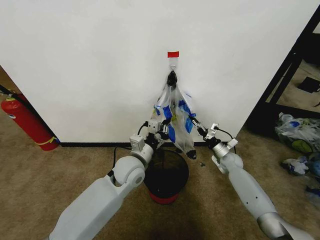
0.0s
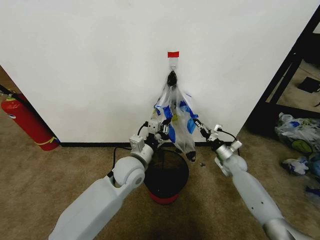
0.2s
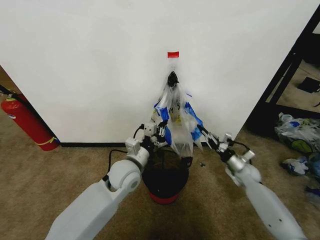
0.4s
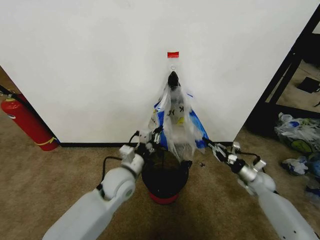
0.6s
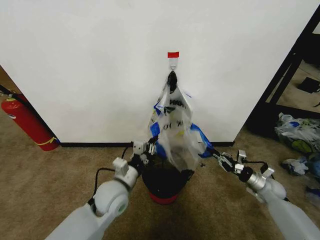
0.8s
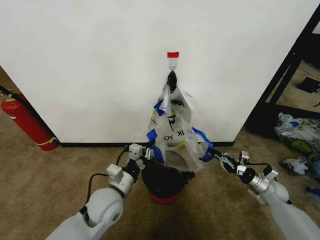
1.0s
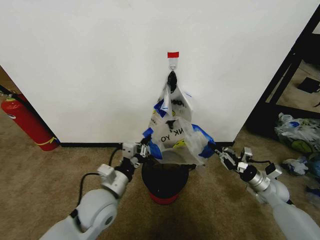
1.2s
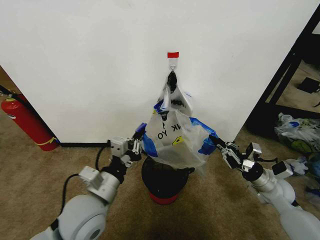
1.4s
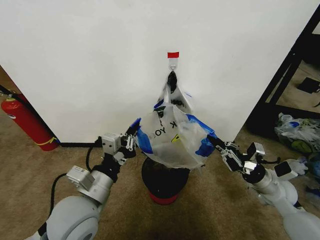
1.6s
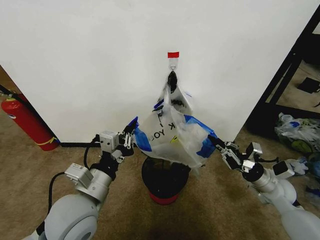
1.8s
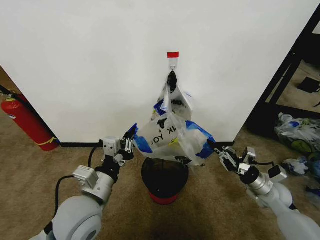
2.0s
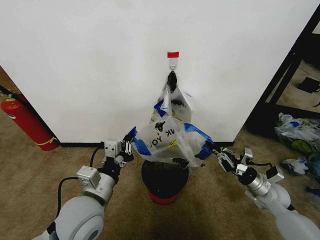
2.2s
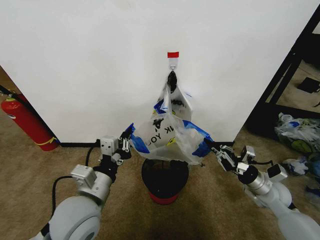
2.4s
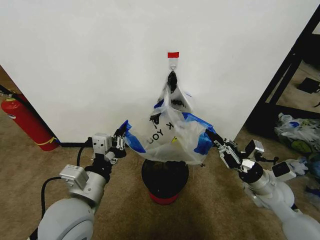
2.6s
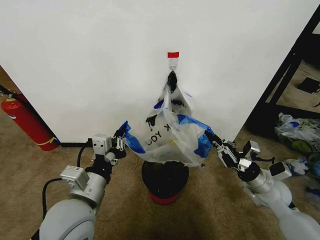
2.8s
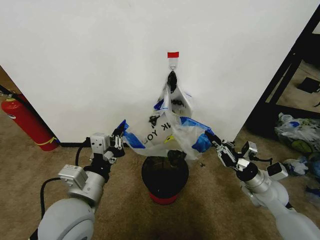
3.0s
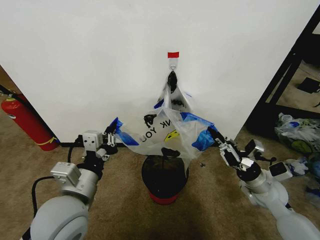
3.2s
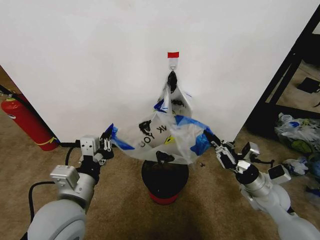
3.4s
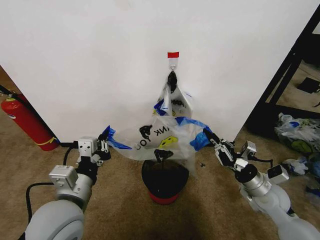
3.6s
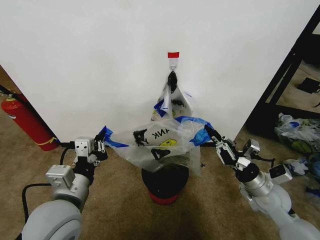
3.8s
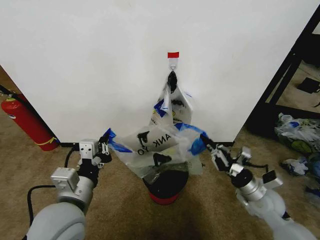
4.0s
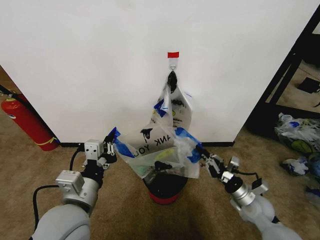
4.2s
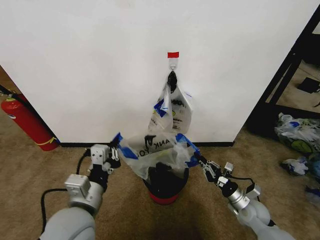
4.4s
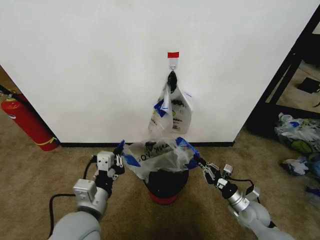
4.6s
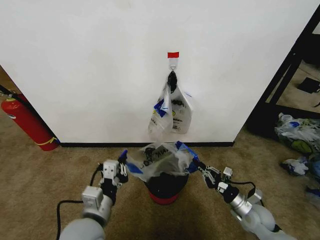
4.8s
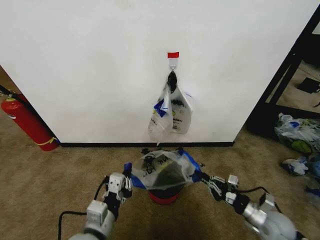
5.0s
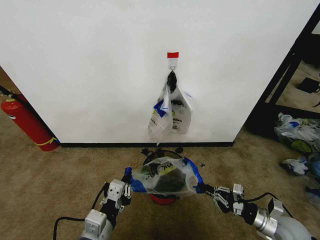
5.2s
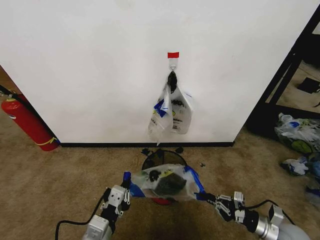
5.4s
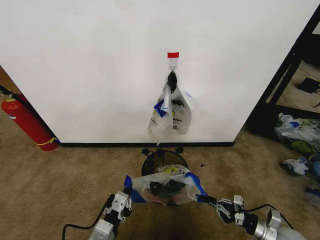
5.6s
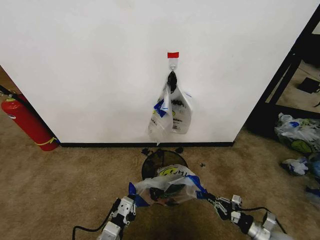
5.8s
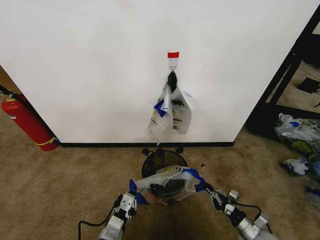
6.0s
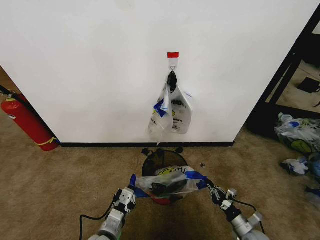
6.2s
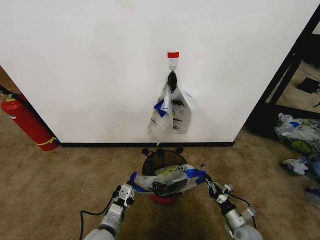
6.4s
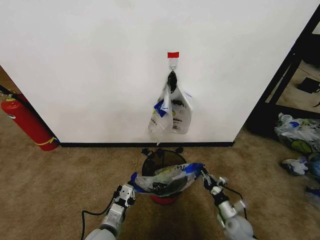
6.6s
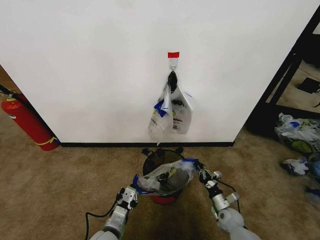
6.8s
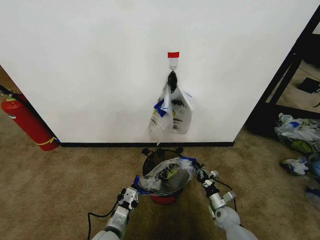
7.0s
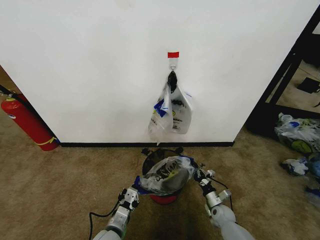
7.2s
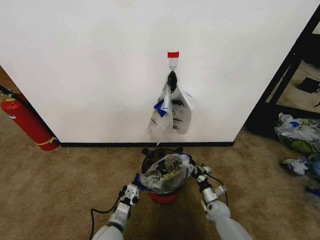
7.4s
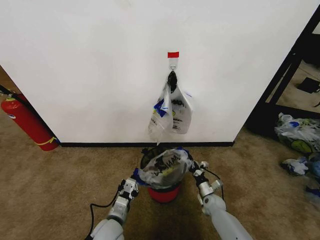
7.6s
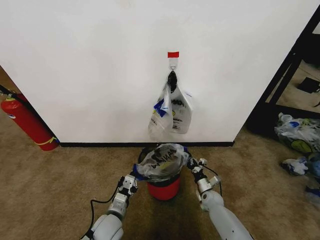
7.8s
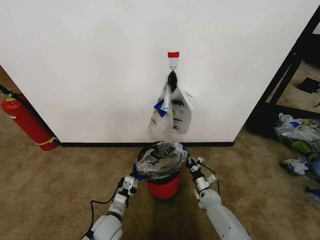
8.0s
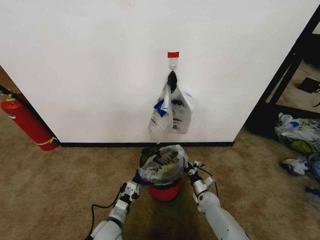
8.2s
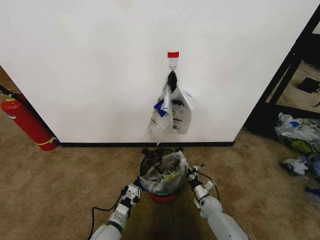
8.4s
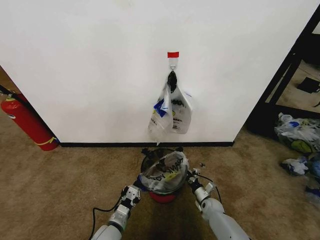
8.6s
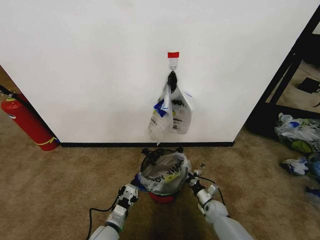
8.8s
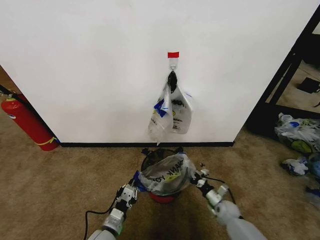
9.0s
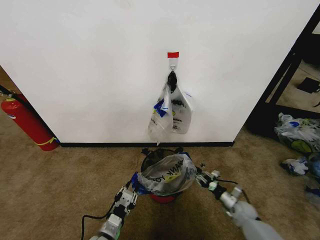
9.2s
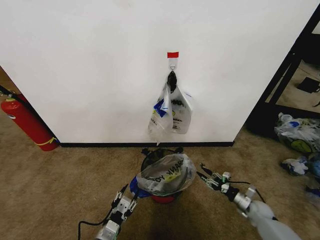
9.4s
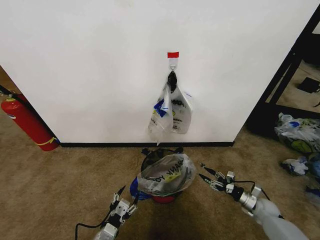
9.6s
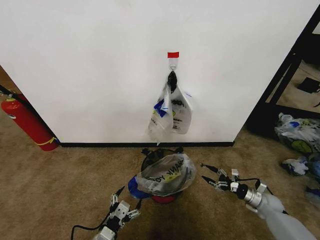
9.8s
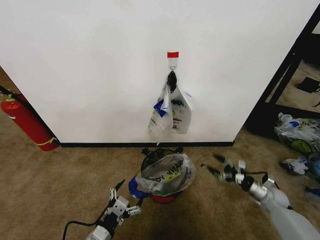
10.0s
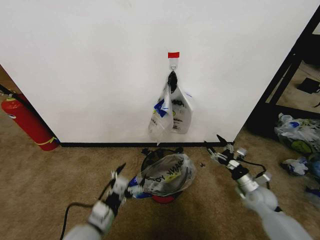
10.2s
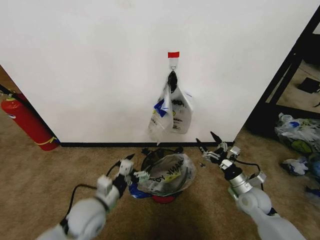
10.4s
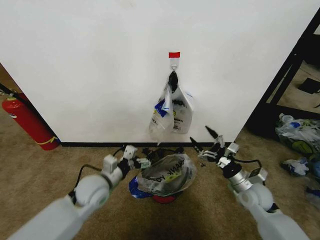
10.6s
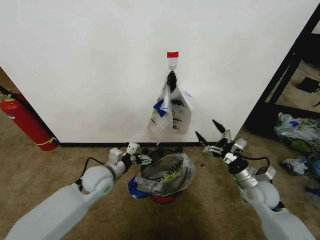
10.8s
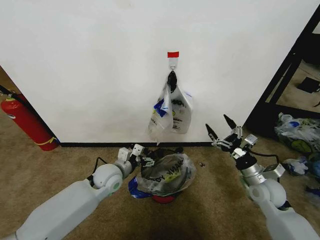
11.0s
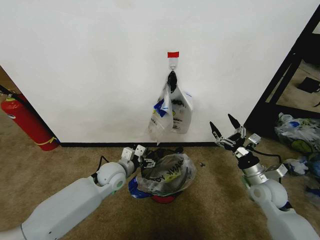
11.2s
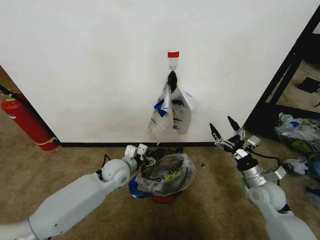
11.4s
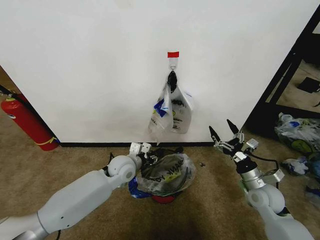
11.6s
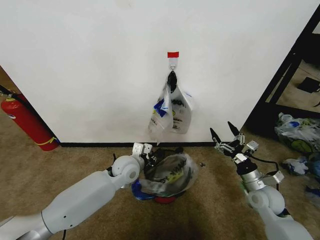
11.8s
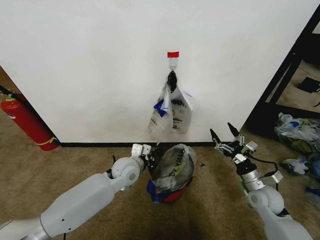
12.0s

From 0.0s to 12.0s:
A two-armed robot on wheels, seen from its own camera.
Task of the whole recording: Pick up the garbage bag from the wall and place it over the trash bin.
From 0.0s to 1.6s: The left gripper goes some 20 cm backward, to the left and upward; the right gripper is displaced backward and upward by approximately 20 cm.
From 3.0s to 4.4s: The right gripper shifts about 10 cm downward.
From 4.4s to 6.0s: The right gripper travels backward and downward by about 10 cm. Meanwhile the left gripper shifts approximately 15 cm downward.
From 6.0s to 7.6s: The left gripper travels forward and downward by some 10 cm, while the right gripper moves forward, to the left and downward, approximately 20 cm.
From 7.6s to 9.0s: The grippers stay close to where they were, moving slightly.
From 9.0s to 10.4s: The right gripper travels upward by approximately 20 cm, and opens its fingers. Meanwhile the left gripper shifts some 10 cm upward, and opens.
From 10.4s to 12.0s: The left gripper heads forward and to the right, covering about 15 cm, and closes.

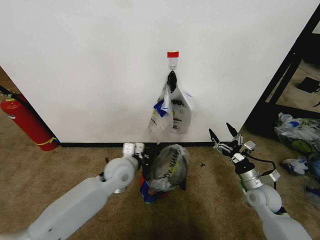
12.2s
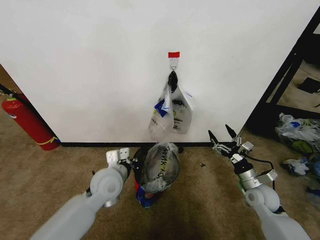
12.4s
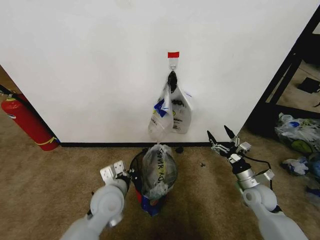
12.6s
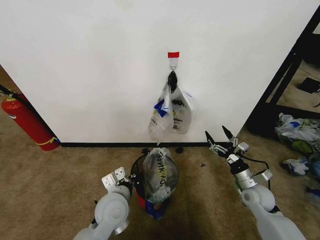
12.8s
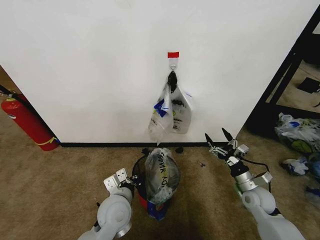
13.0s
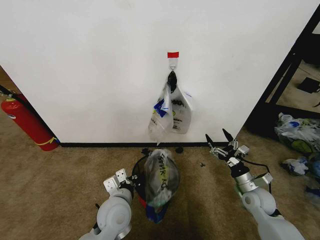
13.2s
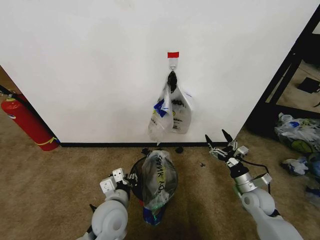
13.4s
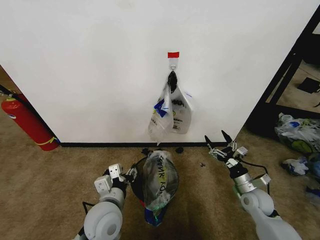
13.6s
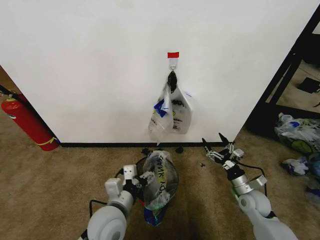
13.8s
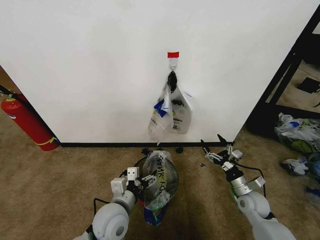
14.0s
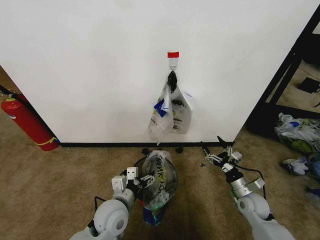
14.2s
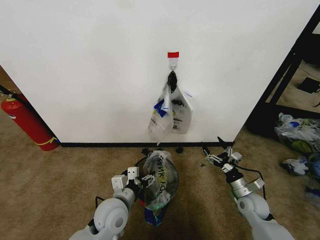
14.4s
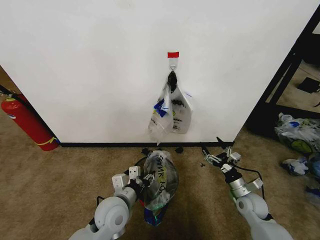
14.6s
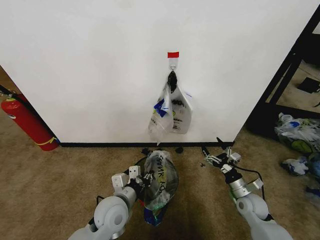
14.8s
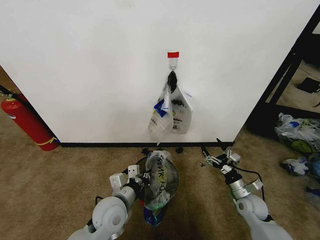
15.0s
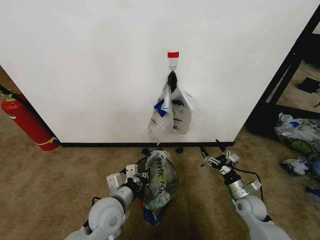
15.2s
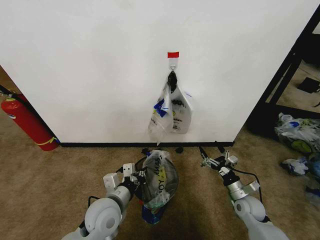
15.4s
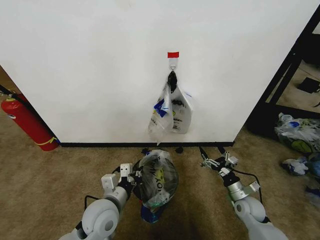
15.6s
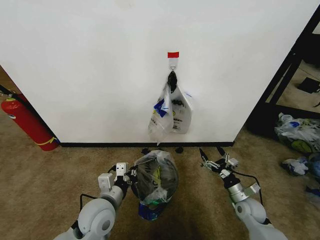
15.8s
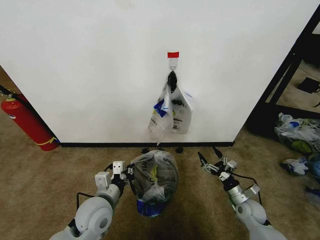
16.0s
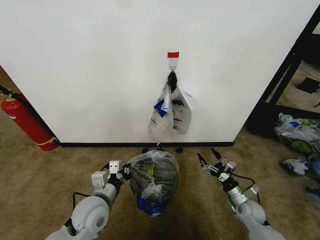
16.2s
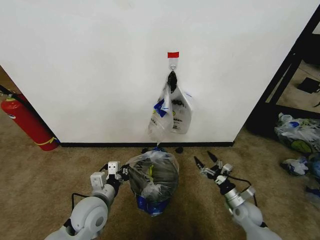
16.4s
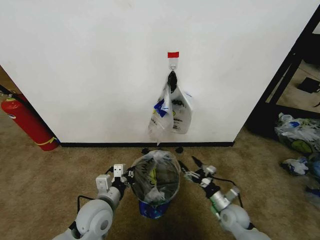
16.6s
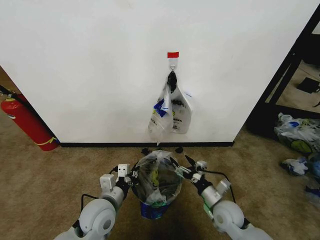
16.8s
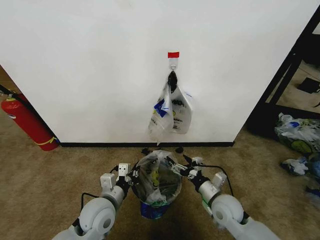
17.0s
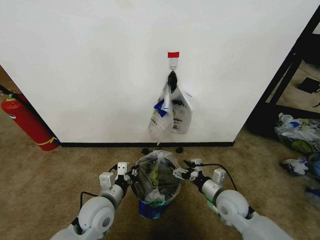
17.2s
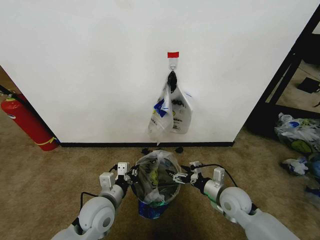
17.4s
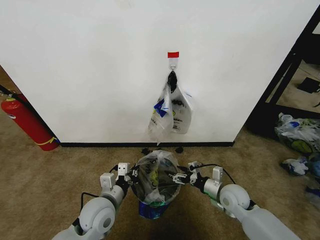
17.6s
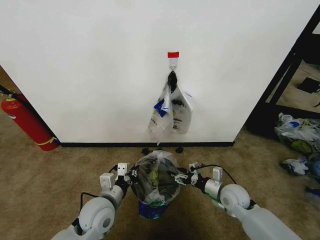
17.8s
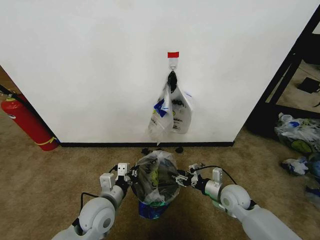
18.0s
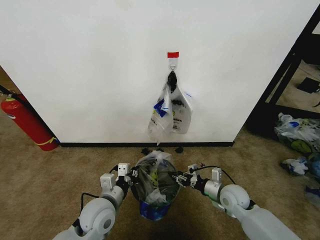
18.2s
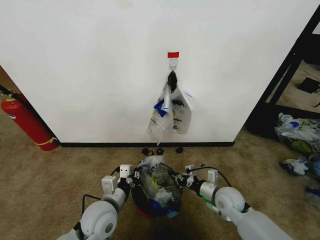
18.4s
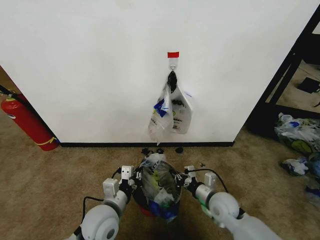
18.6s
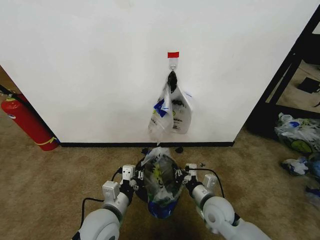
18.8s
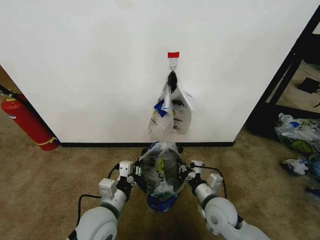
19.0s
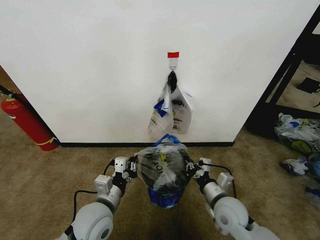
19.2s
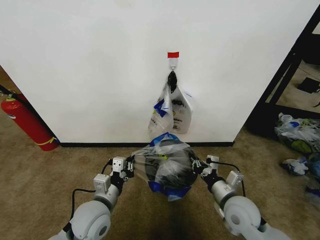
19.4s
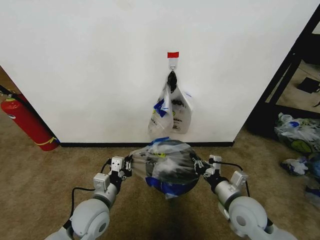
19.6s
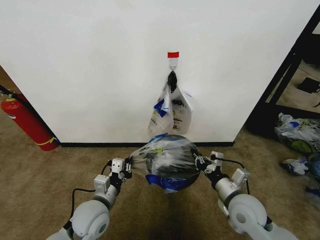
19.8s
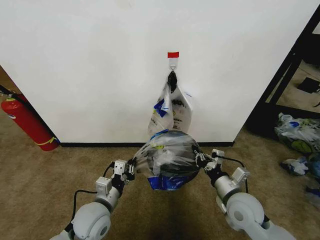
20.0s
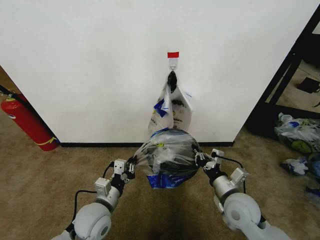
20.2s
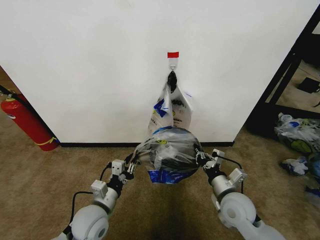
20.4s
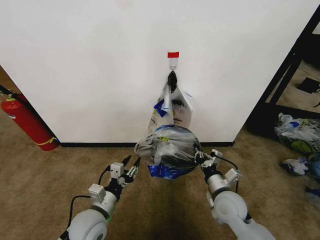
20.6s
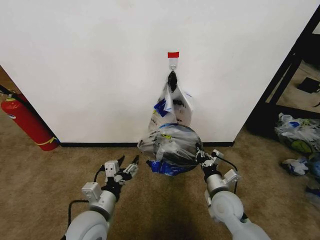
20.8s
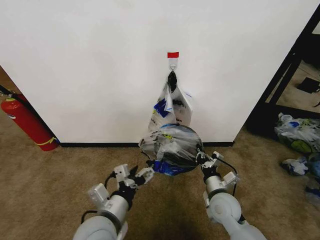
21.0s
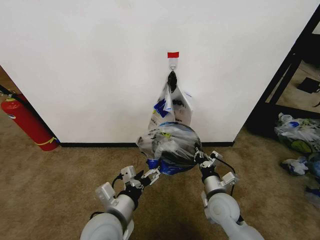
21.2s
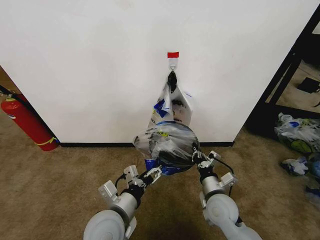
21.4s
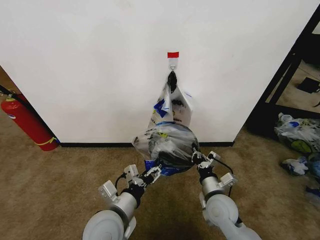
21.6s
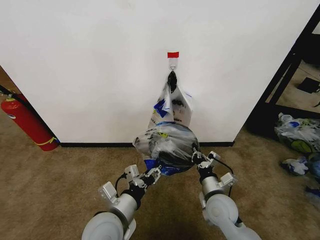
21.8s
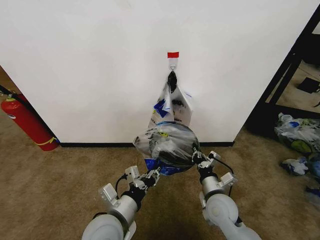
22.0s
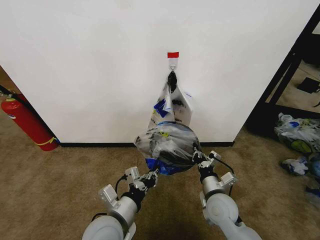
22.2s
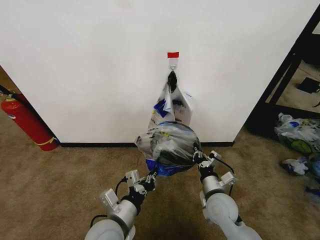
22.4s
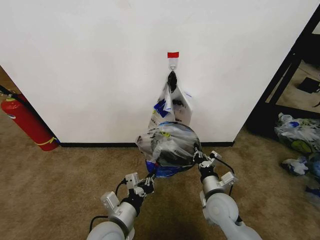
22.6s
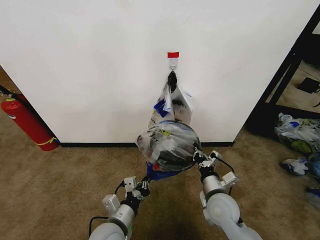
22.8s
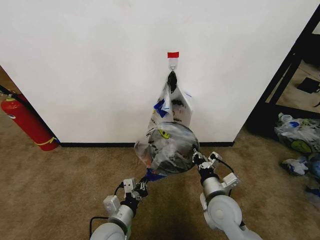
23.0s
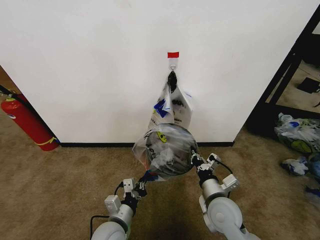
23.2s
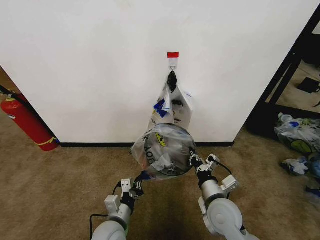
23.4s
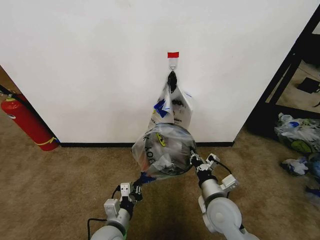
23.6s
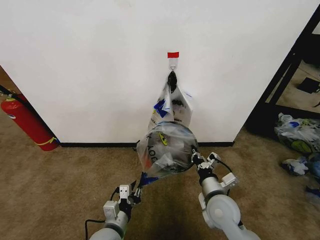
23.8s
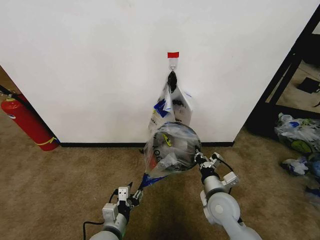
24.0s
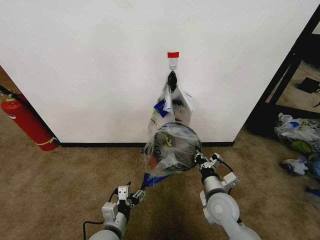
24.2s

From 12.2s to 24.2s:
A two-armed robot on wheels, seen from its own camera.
Task of the whole recording: Pick up the garbage bag from the wall and place it over the trash bin.
From 12.2s to 13.8s: The left gripper shifts roughly 15 cm backward, and opens up.
From 13.8s to 15.2s: The left gripper closes up.
From 15.2s to 16.6s: The right gripper ends up about 5 cm from where it was.
From 16.6s to 18.2s: The right gripper moves upward, some 10 cm, and closes its fingers.
From 18.2s to 19.8s: The right gripper shifts roughly 10 cm upward and backward.
From 19.8s to 21.2s: The right gripper shifts approximately 5 cm downward. Meanwhile the left gripper is displaced upward, to the right and backward by roughly 10 cm, and opens.
From 21.2s to 22.6s: The left gripper is displaced downward by about 5 cm, and closes.
From 22.6s to 24.2s: The left gripper goes approximately 5 cm downward, and opens its fingers.
